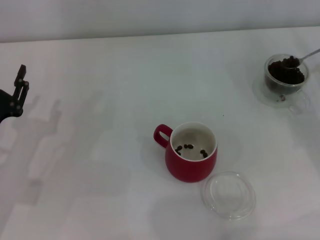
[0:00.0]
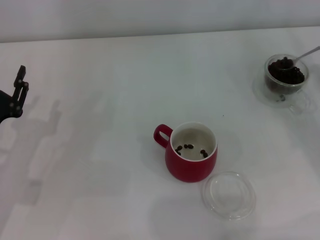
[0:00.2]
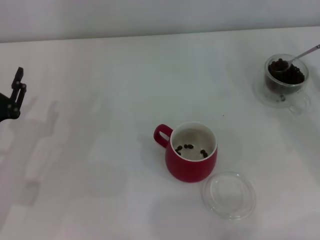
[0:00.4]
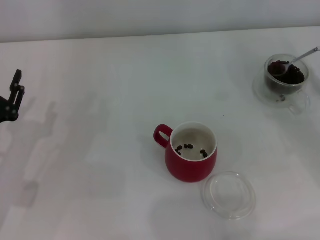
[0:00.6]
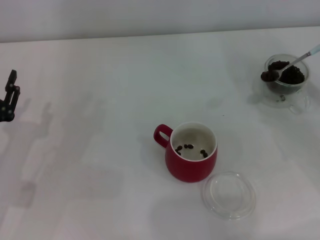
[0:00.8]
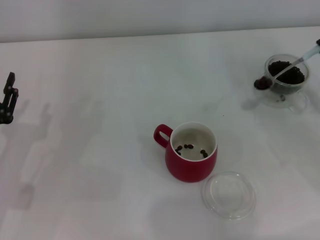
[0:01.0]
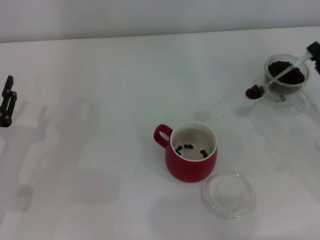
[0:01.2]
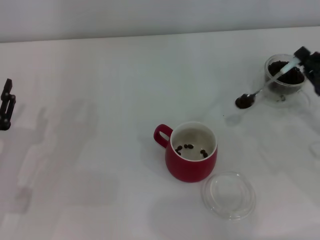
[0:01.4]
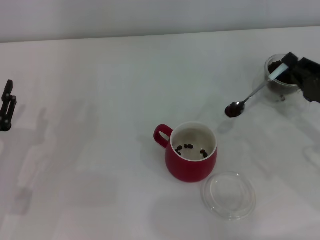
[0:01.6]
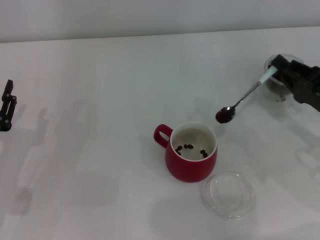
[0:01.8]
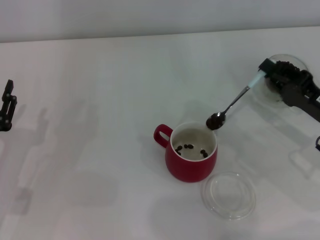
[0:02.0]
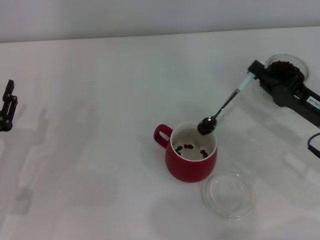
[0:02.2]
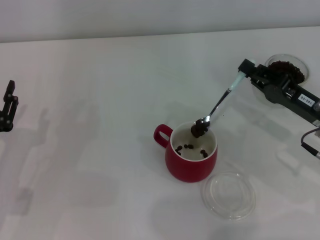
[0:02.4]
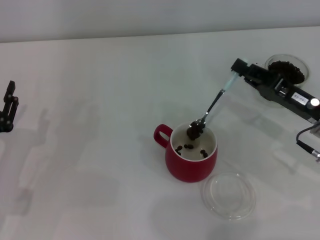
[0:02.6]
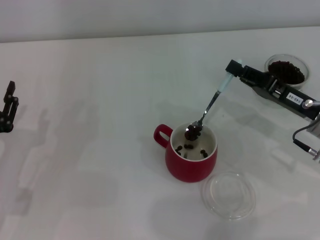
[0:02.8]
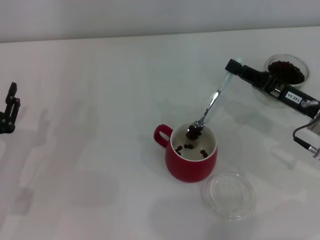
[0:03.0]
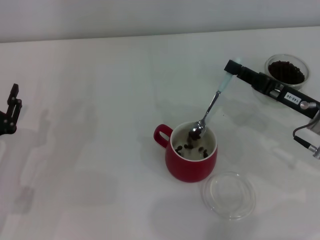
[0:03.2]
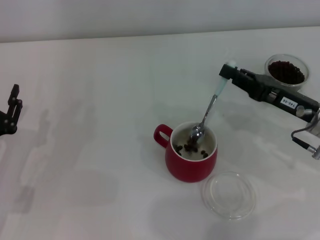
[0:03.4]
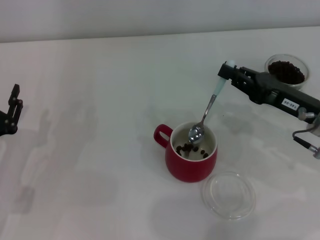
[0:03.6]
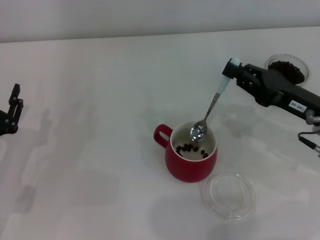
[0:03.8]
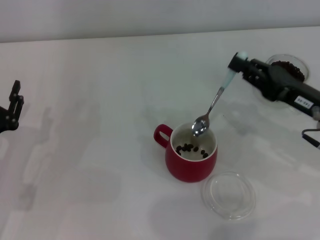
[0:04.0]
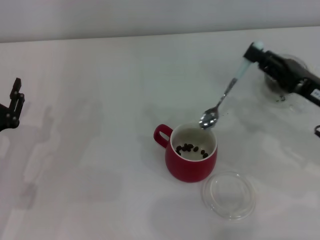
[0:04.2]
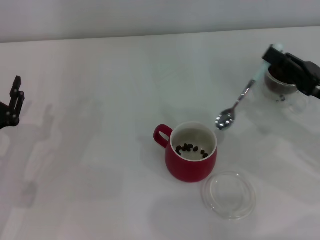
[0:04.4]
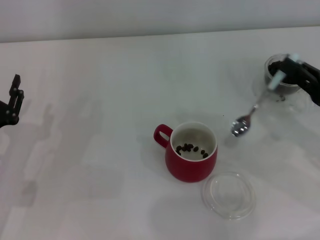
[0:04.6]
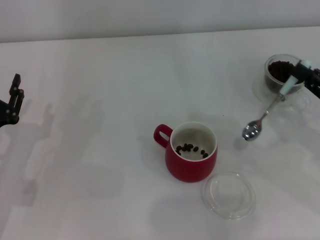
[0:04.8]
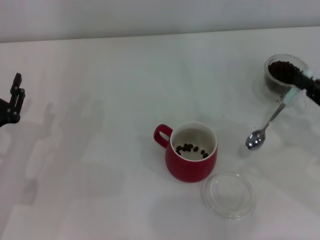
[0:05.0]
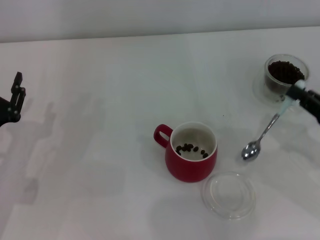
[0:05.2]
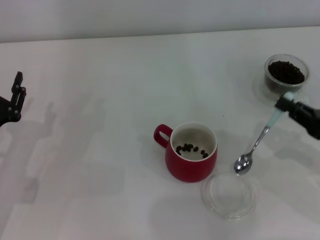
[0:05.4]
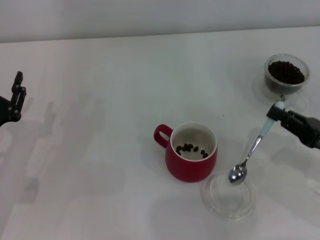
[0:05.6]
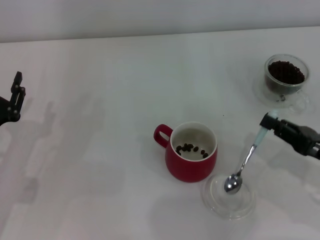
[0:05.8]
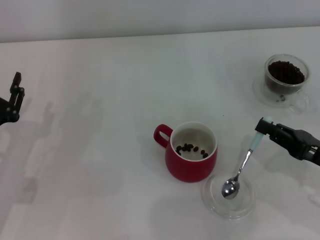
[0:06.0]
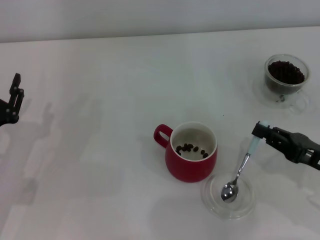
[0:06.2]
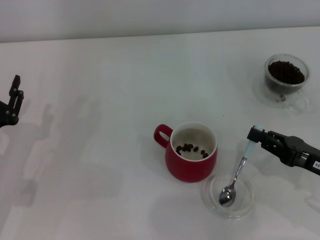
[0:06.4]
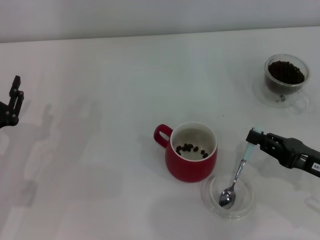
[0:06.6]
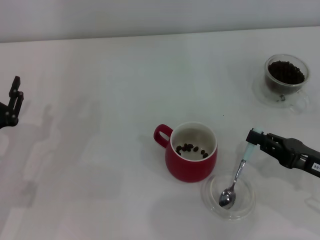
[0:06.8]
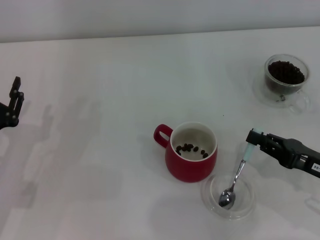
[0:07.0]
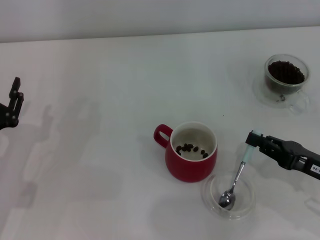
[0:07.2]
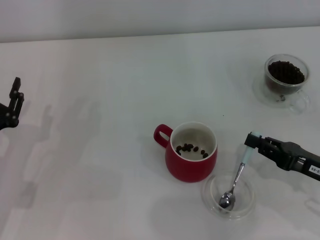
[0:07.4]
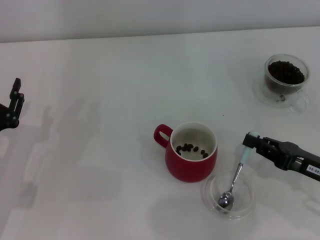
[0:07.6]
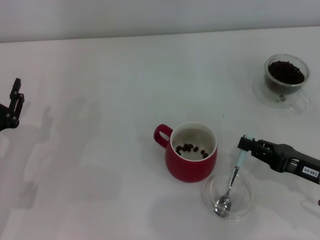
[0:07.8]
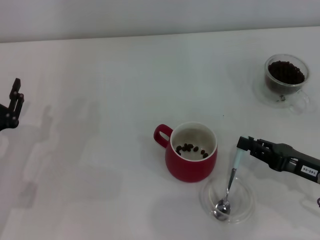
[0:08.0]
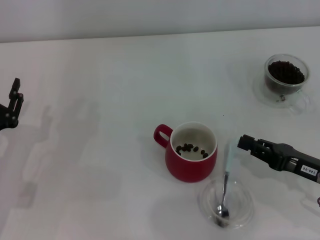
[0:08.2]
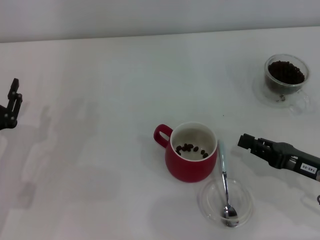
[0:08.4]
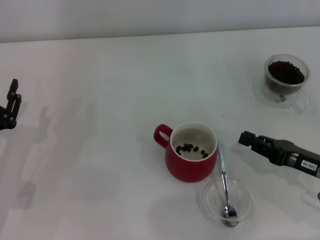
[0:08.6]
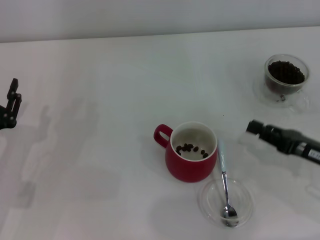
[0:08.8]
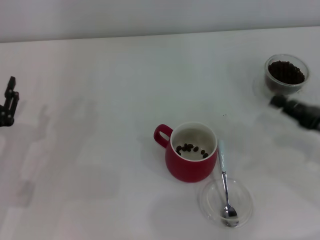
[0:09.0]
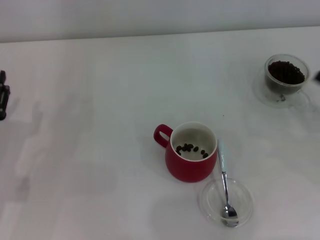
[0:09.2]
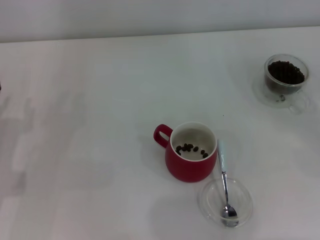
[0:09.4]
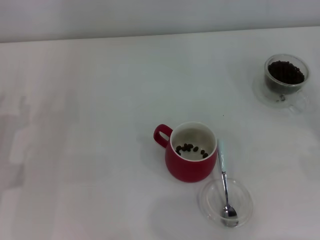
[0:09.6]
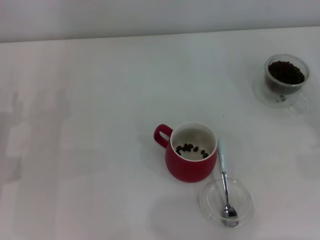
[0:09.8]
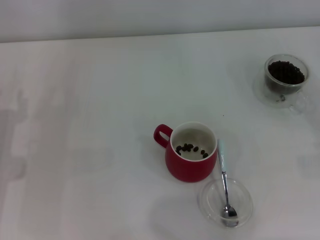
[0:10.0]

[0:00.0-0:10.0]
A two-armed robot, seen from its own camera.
Task of the whole recording: Use a blue spoon to take out the coffee beans from the glass and pour them into the red cup.
Step, 0:00.0 to 0:03.4: Scoop a spoonful of beans into the cup with the right gripper.
Step, 0:03.6 to 0:08.6: Place the spoon back in its original place with the right gripper.
0:00.0 to 0:01.4: The right gripper shifts roughly 5 cm to the left.
0:01.4 to 0:02.8: The right gripper moves to the left, about 5 cm.
0:04.2 to 0:05.8: The right gripper heads backward, covering approximately 5 cm.
0:05.8 to 0:08.6: The grippers make only small movements.
0:08.6 to 0:10.0: The right gripper moves to the right, approximately 15 cm.

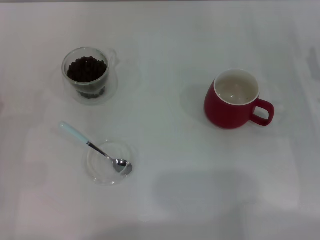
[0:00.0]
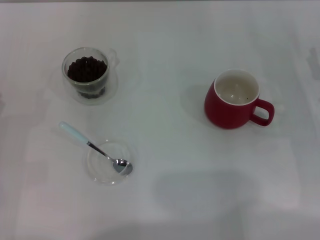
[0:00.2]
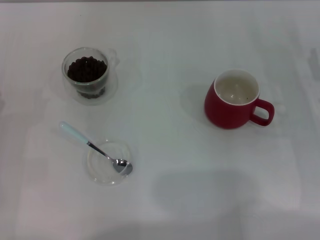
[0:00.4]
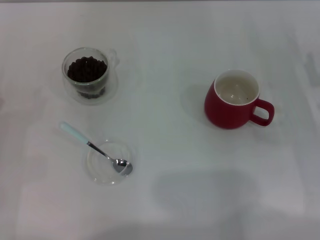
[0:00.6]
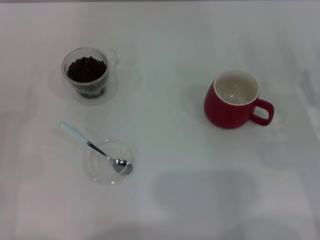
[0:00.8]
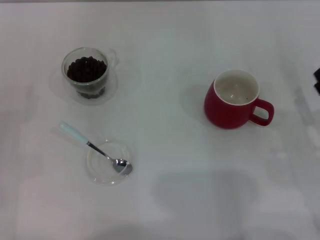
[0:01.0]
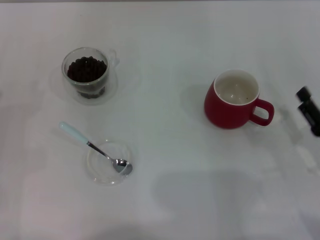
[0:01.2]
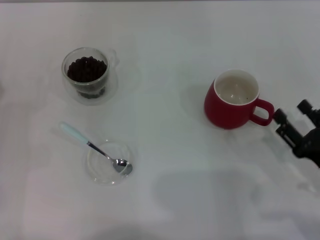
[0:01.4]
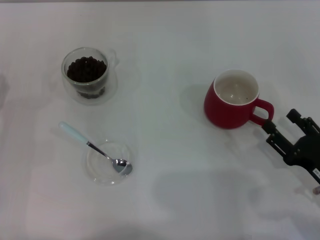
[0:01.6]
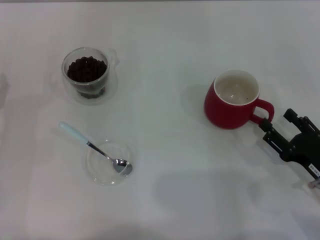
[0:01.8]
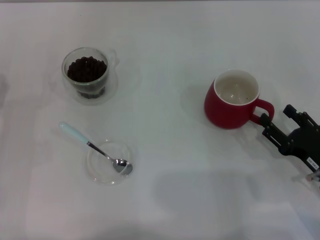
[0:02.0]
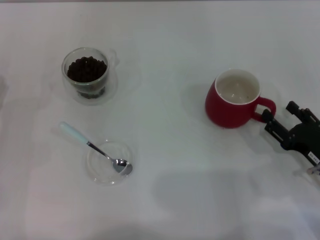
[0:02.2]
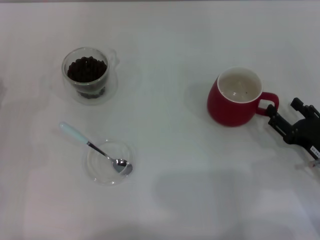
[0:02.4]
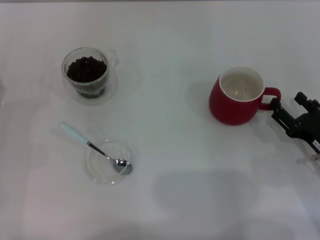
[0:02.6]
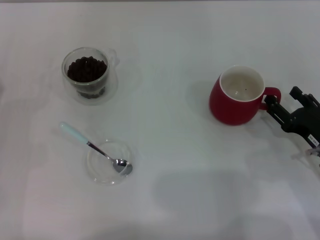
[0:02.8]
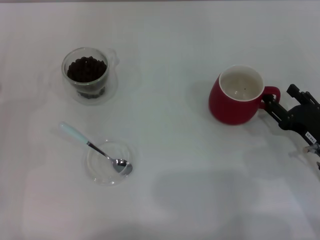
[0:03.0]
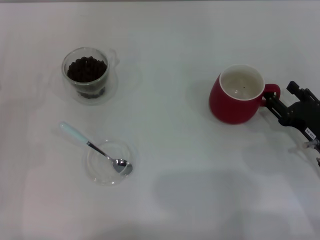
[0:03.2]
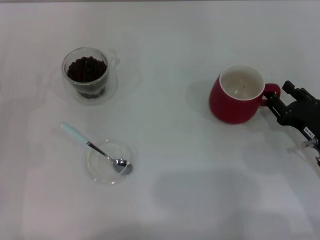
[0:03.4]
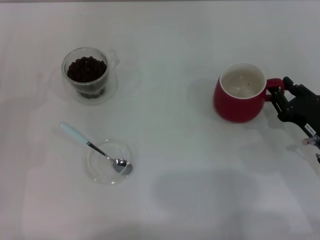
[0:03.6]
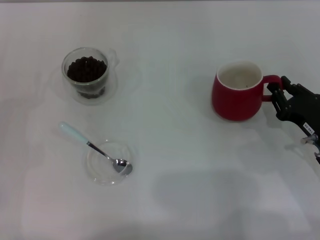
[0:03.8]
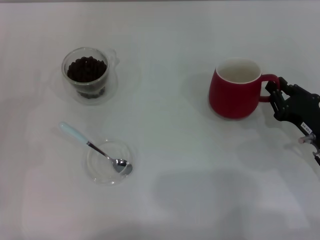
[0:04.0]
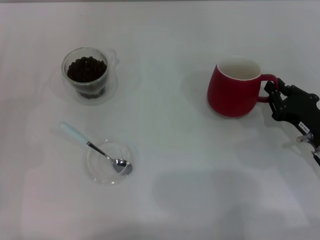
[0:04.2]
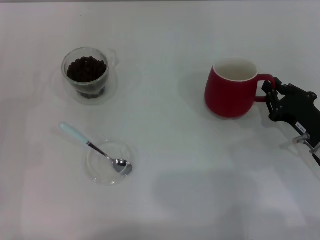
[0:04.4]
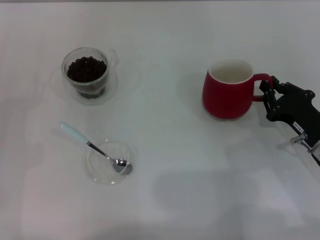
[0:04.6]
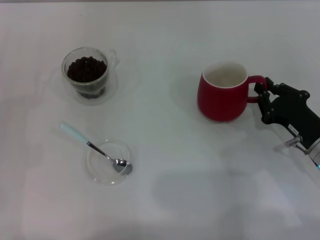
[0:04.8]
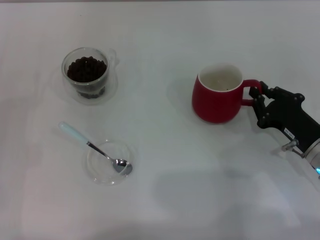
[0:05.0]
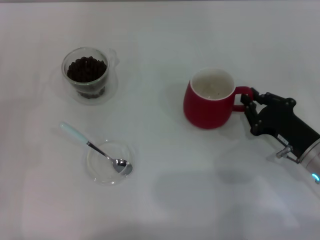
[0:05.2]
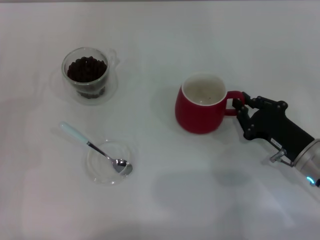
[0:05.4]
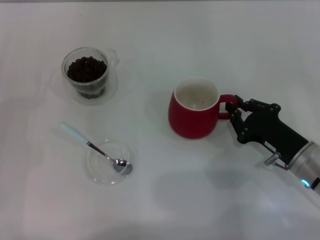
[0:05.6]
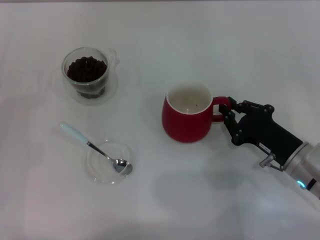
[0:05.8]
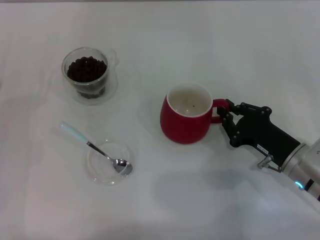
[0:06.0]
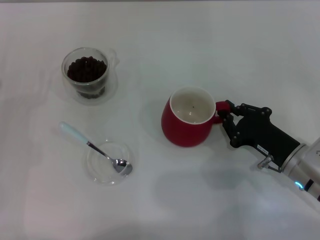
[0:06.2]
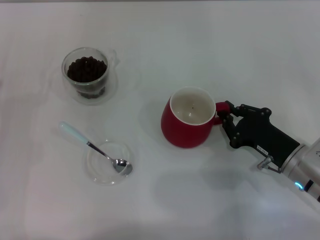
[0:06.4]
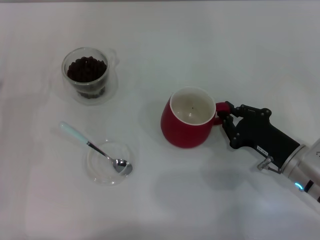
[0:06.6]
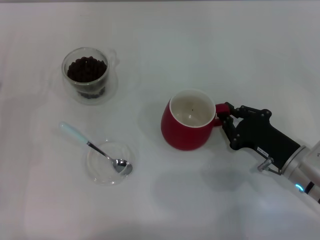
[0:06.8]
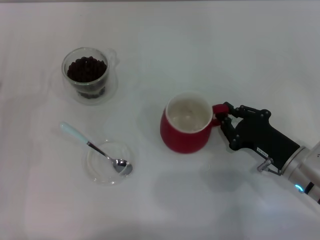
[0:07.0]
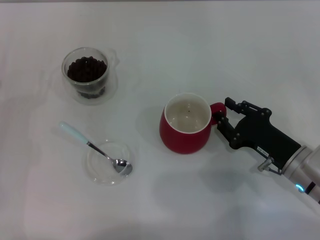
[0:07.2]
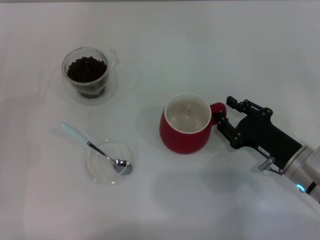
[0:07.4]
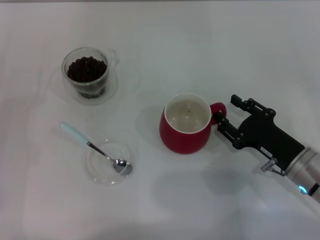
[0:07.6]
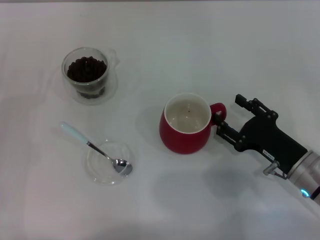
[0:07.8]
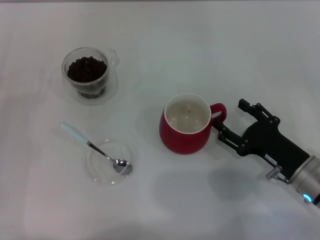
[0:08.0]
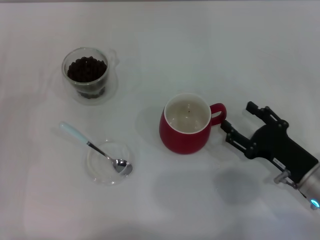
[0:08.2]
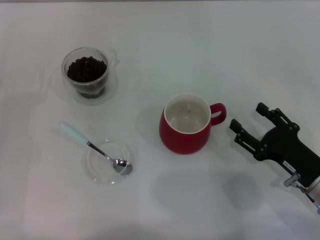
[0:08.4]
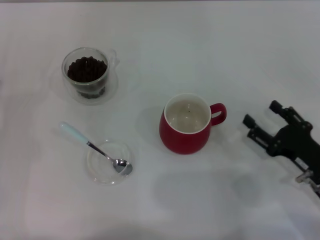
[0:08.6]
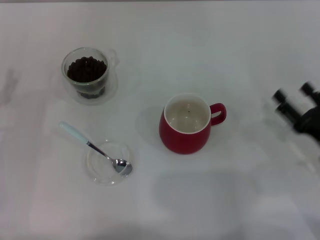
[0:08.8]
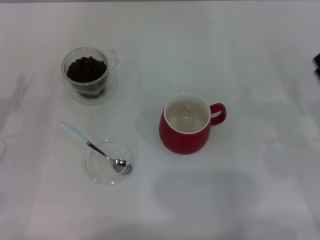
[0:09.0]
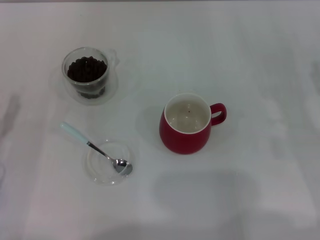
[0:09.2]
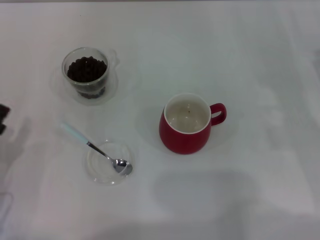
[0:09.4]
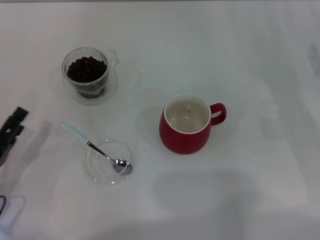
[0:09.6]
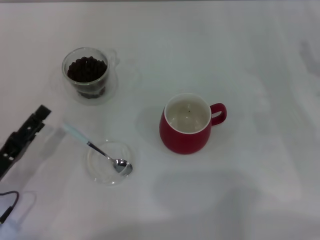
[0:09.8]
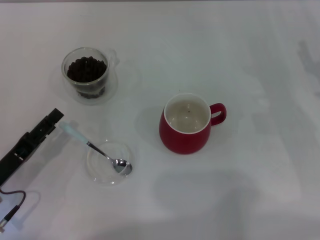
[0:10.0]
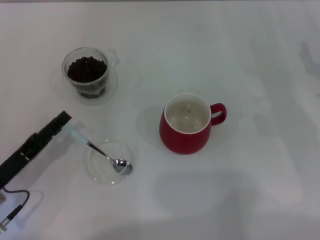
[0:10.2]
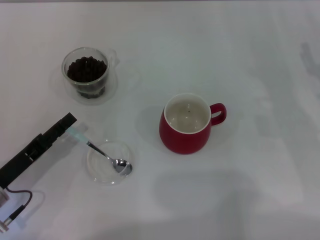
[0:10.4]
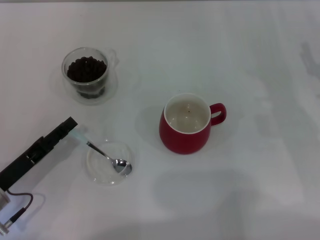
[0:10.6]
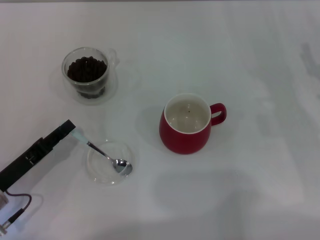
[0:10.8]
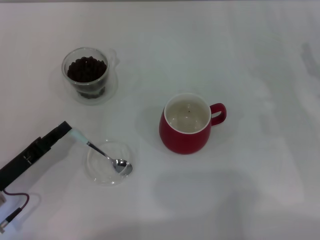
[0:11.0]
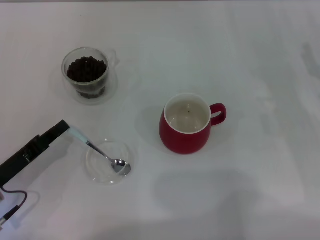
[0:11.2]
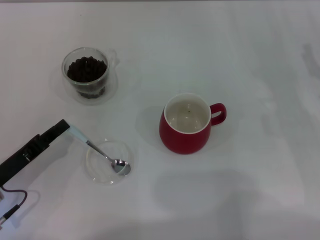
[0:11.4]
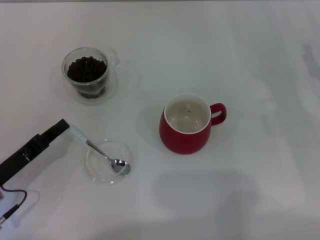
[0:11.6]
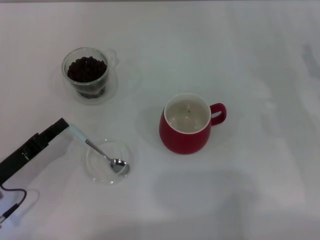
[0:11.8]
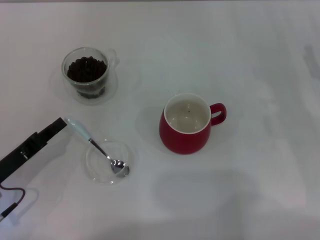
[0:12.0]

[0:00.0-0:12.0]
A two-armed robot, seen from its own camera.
Task of the whole recording: Use a blue spoon to take out the coffee beans from the glass and pour them into the red cup.
Step, 0:00.0 to 0:08.4: Move the cup to the center of view with the left gripper.
0:00.0 to 0:01.6: The right gripper travels backward by some 15 cm.
0:01.6 to 0:03.0: The right gripper travels forward by approximately 5 cm.
0:03.0 to 0:04.4: The right gripper closes its fingers.
0:04.4 to 0:06.0: The grippers stay close to where they were, moving slightly.
0:06.0 to 0:07.6: The right gripper opens its fingers.
0:07.6 to 0:09.0: The right gripper heads to the right, covering approximately 10 cm, and opens its fingers.
0:09.0 to 0:10.4: The left gripper heads backward, covering roughly 5 cm.
0:10.4 to 0:12.0: The left gripper closes its fingers.
